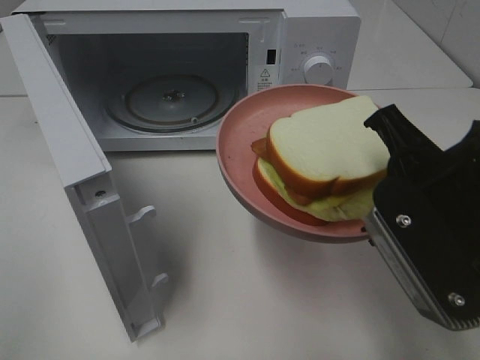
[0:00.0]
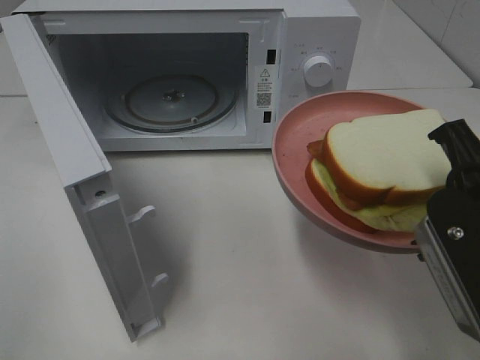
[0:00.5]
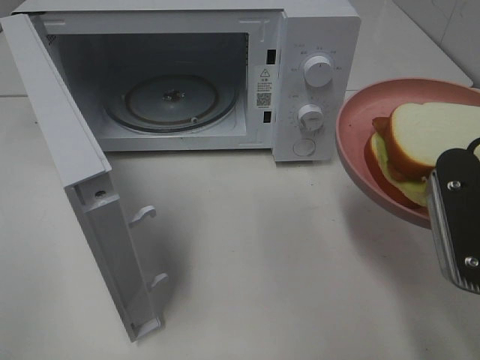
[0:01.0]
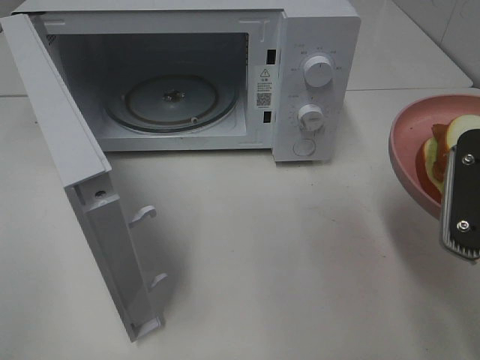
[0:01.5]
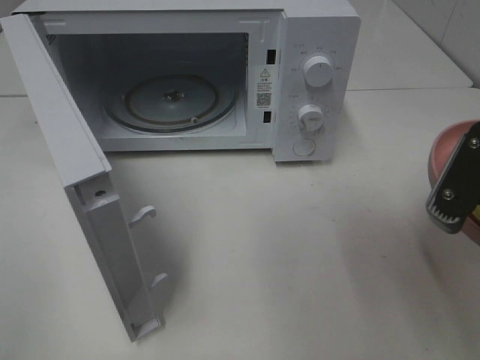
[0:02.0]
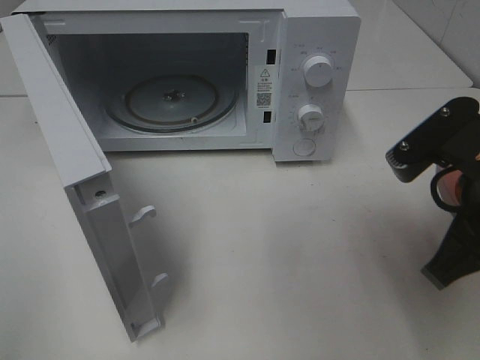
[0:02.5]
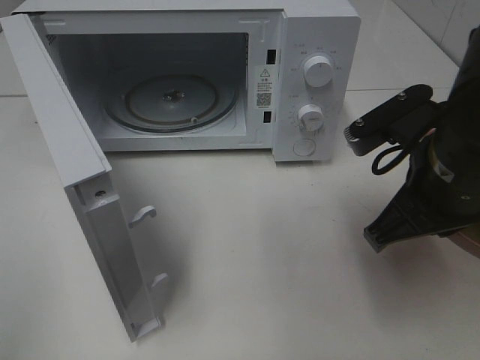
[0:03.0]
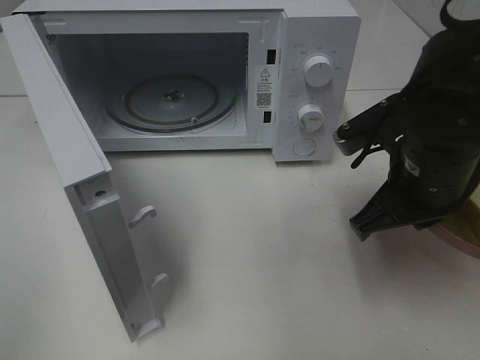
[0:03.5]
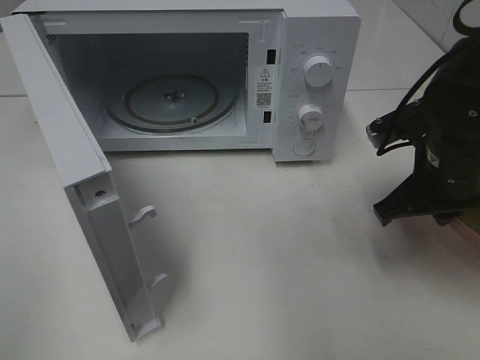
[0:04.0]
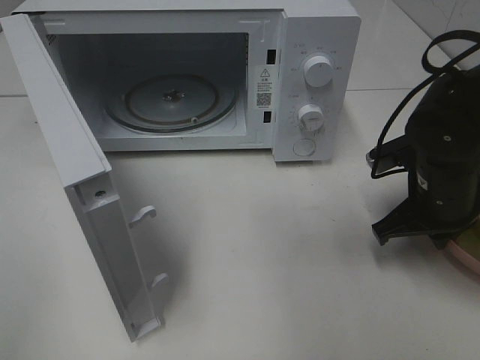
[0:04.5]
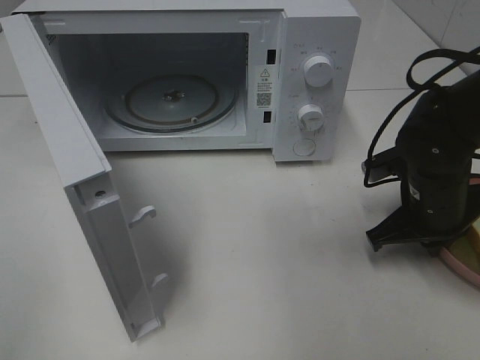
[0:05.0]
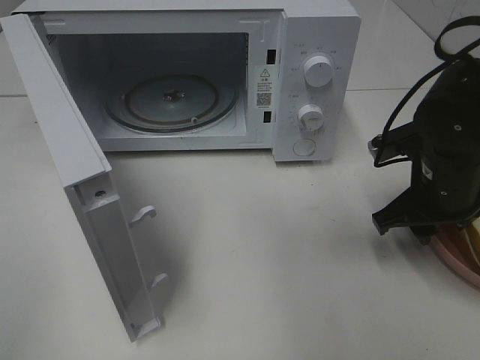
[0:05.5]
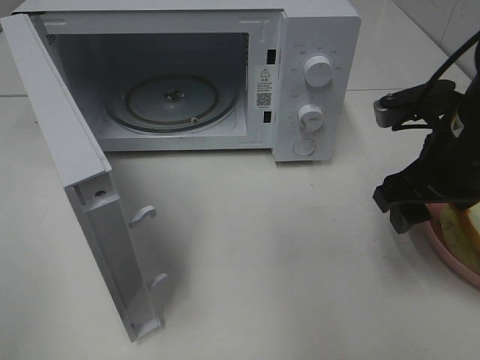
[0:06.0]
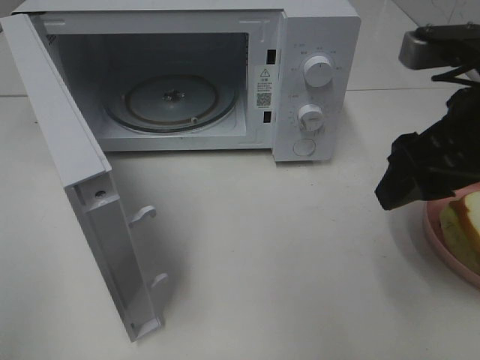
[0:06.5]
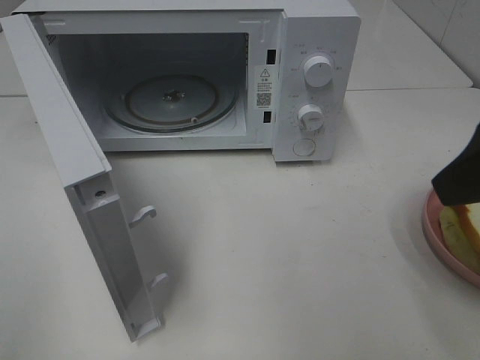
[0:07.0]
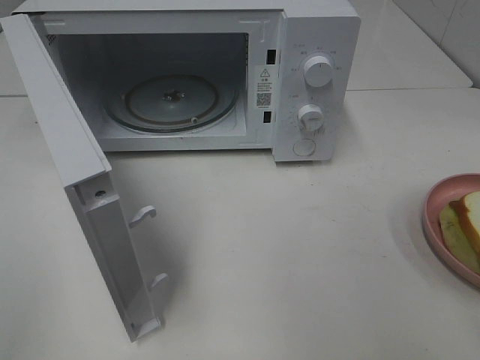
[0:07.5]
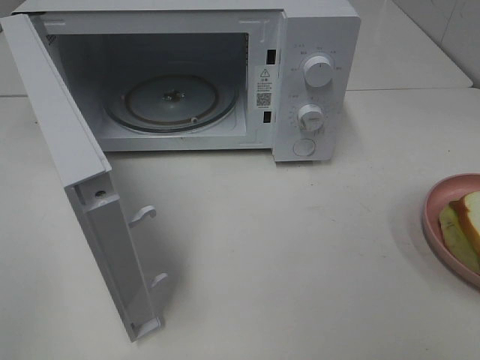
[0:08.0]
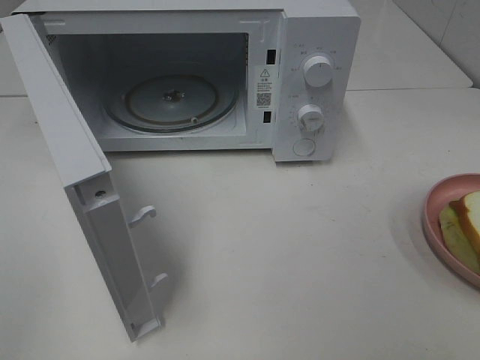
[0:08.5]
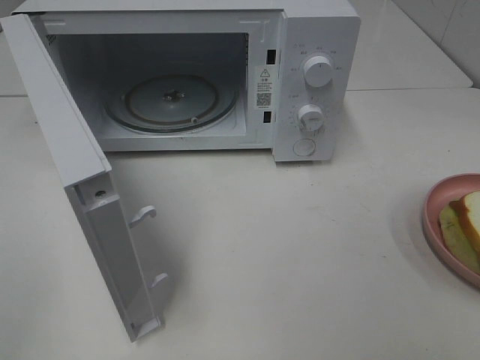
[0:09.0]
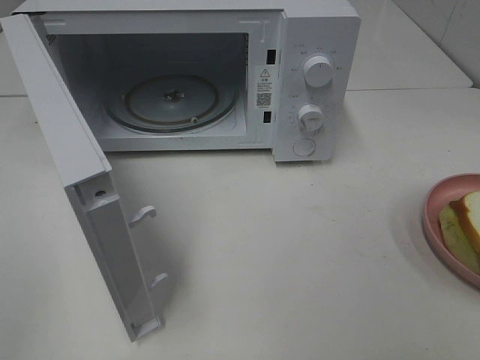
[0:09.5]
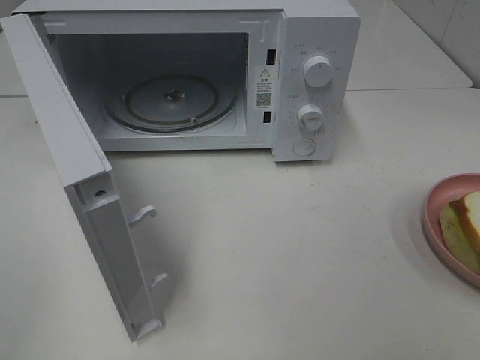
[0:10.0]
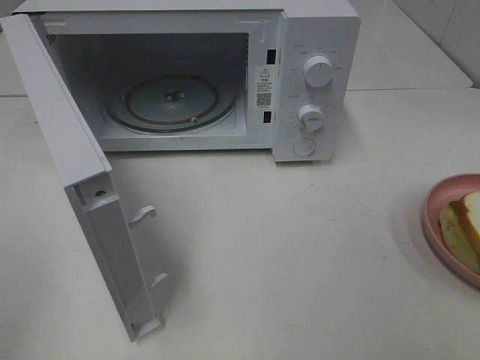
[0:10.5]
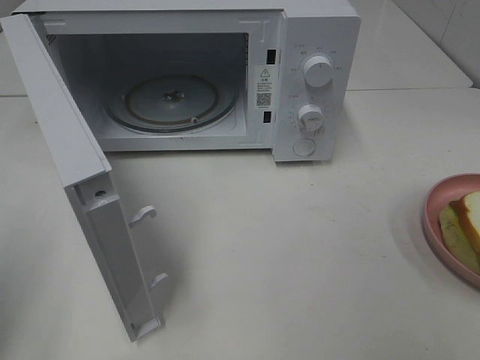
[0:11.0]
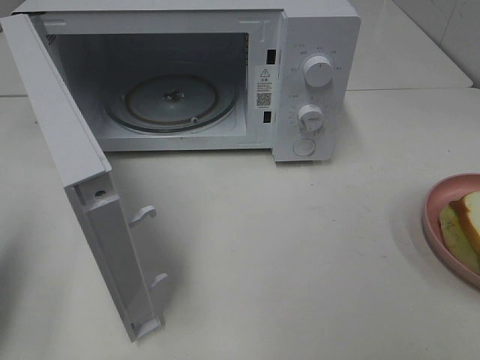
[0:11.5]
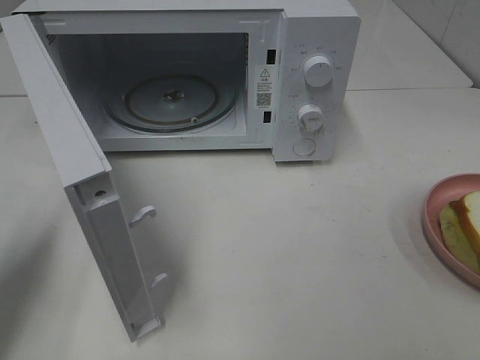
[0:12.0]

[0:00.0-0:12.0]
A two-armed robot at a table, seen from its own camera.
Task of the whole recording: Heat Sandwich.
Step, 0:00.0 to 0:06.0: Right hand: place the plate on the table.
0:00.0 to 0:02.0: The right gripper shifts about 5 cm to the right.
0:02.0 to 0:04.0: The right gripper shifts some 15 cm forward and downward.
0:04.0 to 0:06.0: The right gripper opens.
0:06.0 to 0:08.0: The right gripper shifts about 25 cm backward.
0:10.0 to 0:12.0: The left gripper is displaced forward by some 20 cm, and closes up.

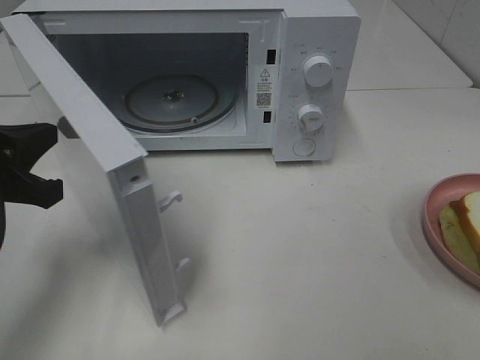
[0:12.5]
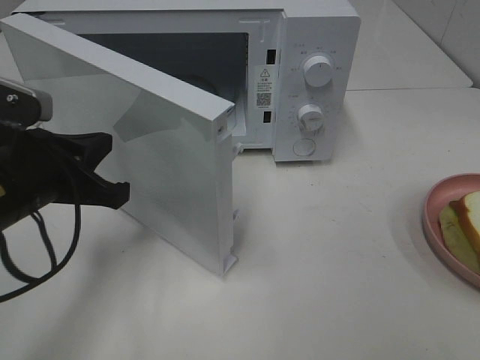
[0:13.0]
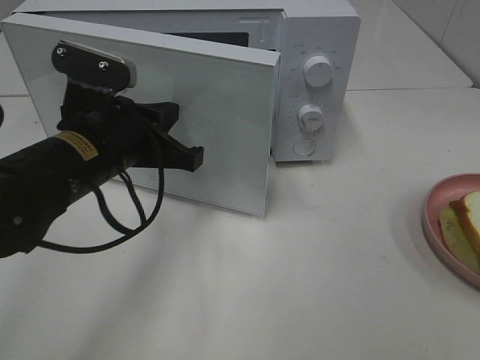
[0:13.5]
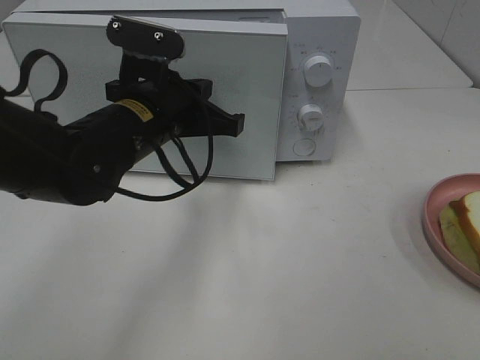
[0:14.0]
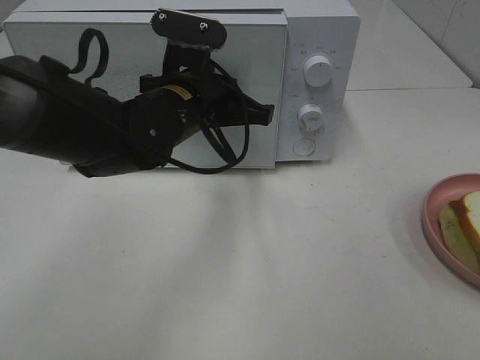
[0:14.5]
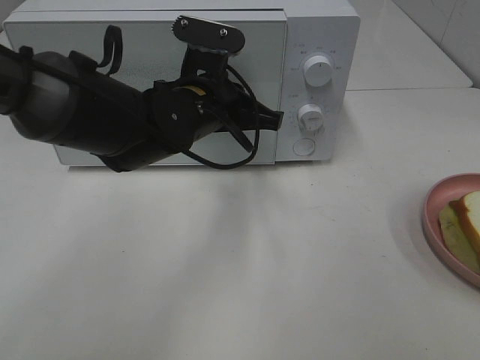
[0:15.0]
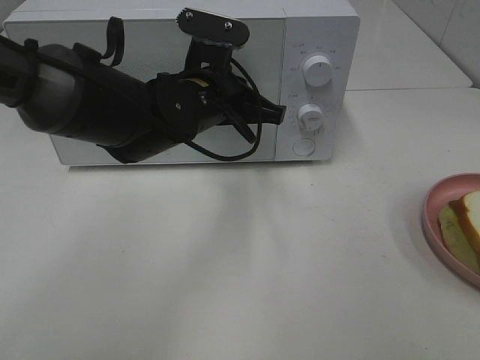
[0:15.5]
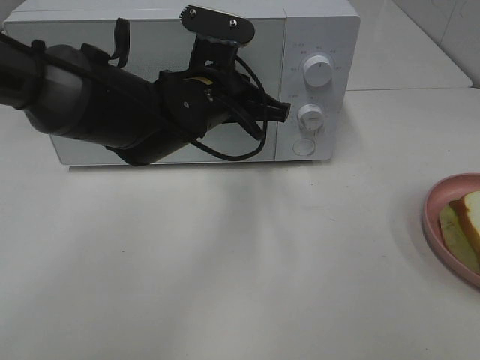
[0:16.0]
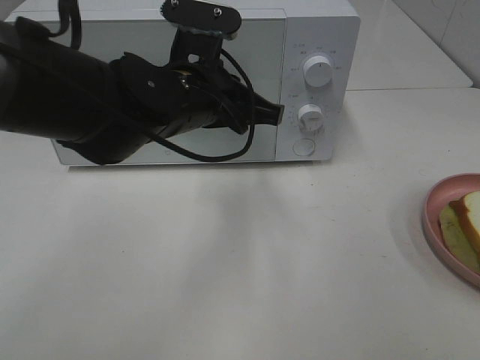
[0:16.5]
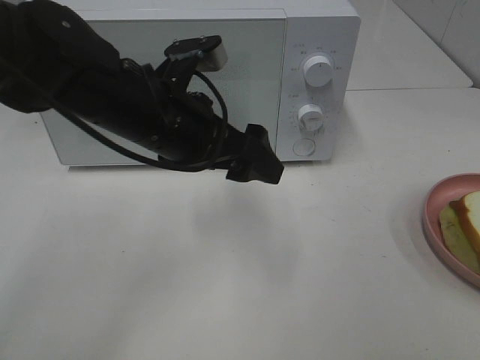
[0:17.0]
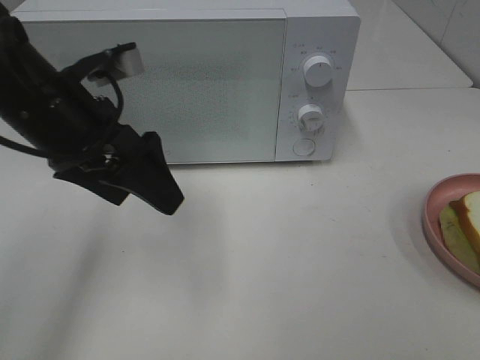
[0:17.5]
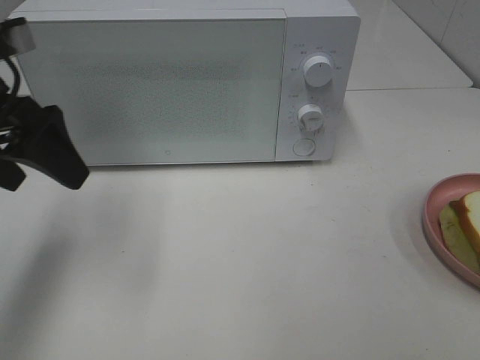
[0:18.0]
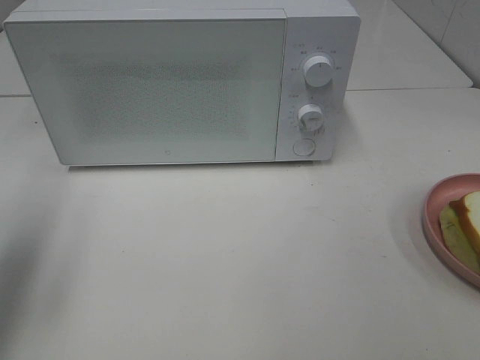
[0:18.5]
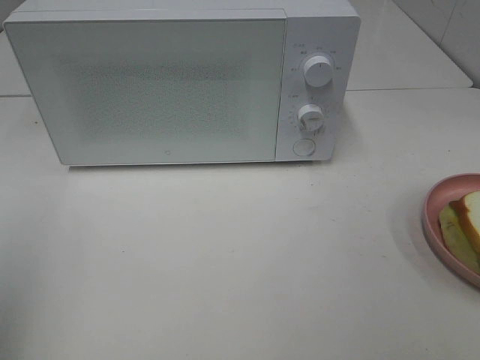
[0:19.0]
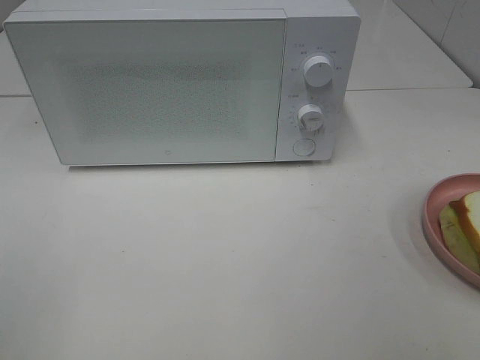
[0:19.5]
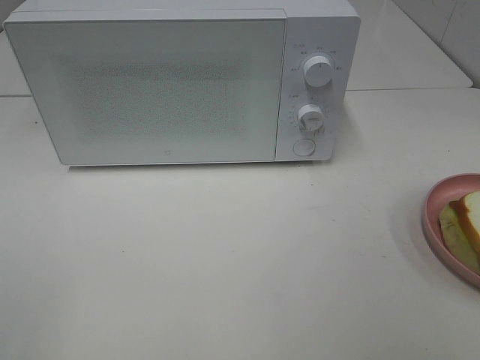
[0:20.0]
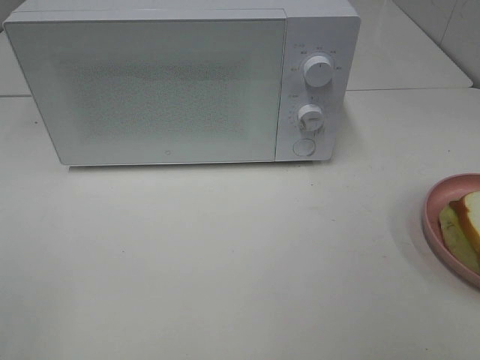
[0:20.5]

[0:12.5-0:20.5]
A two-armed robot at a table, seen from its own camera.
Task of the whole recording: Heat Sandwich.
Step, 0:12.5 to 0:16.0: Left hand: close the microwave door.
0:12.5 to 0:14.5: The left gripper moves to the right and forward, some 20 cm.
0:14.5 to 0:16.5: There are only small adjustments of the grippers.
0:16.5 to 0:18.5: The left gripper is displaced to the left by some 30 cm, and opens.
0:18.5 to 0:20.5: The left gripper goes roughly 20 cm backward.

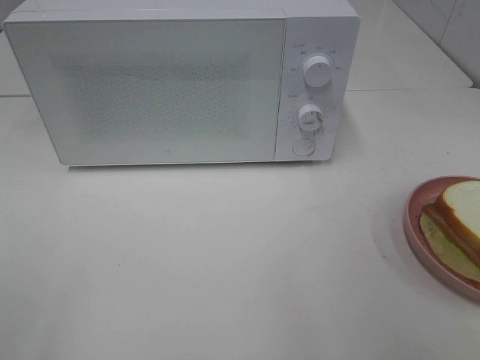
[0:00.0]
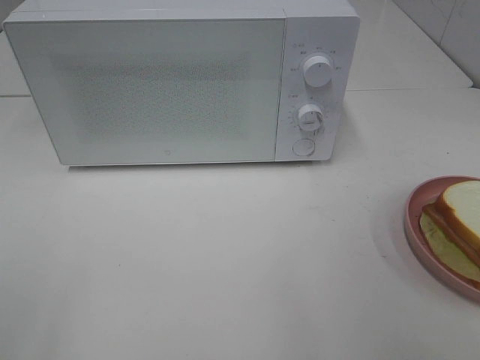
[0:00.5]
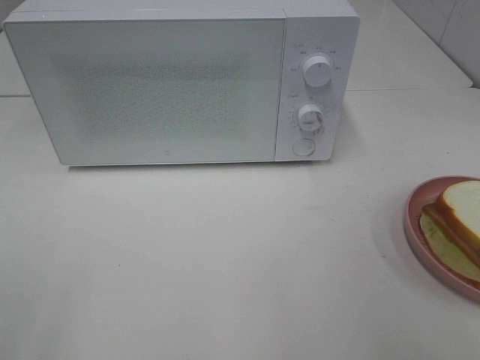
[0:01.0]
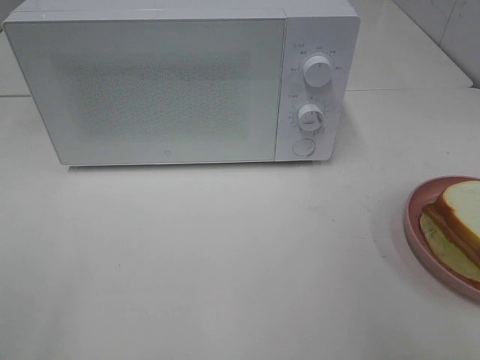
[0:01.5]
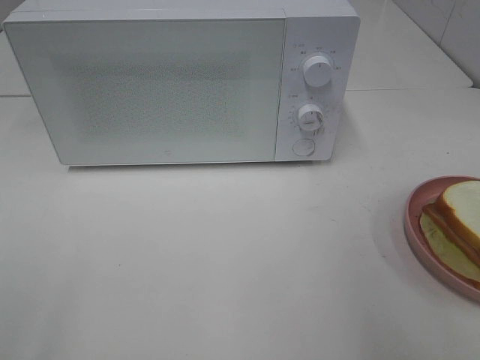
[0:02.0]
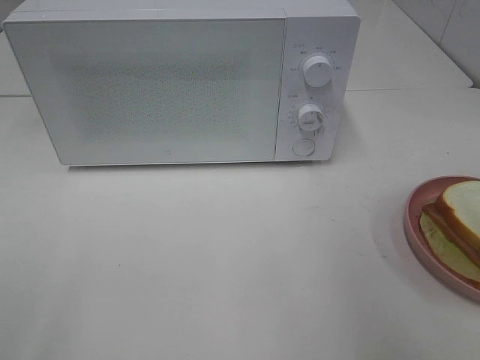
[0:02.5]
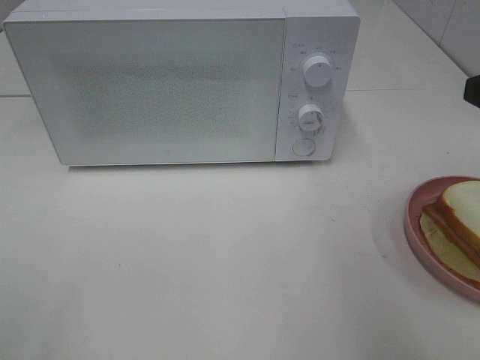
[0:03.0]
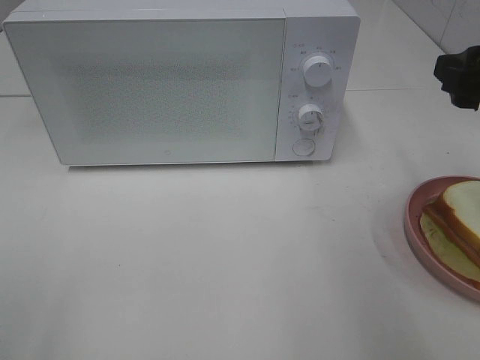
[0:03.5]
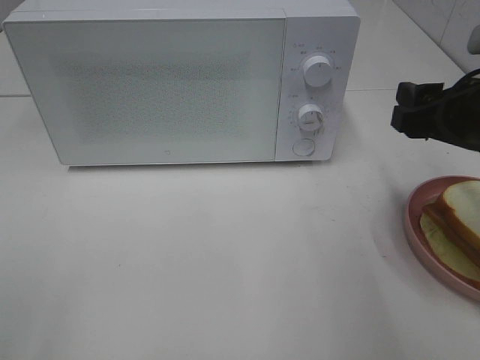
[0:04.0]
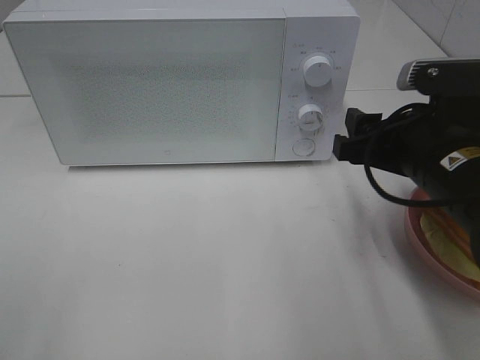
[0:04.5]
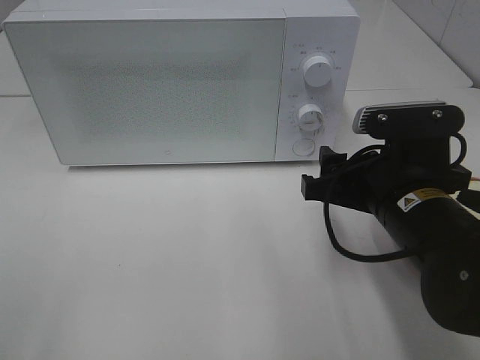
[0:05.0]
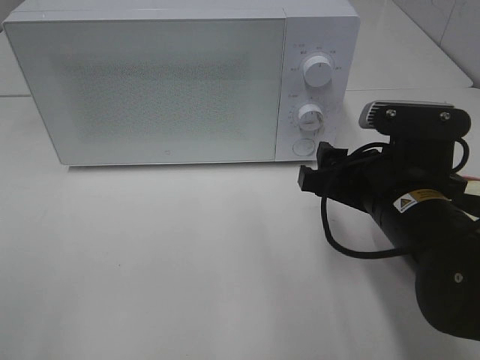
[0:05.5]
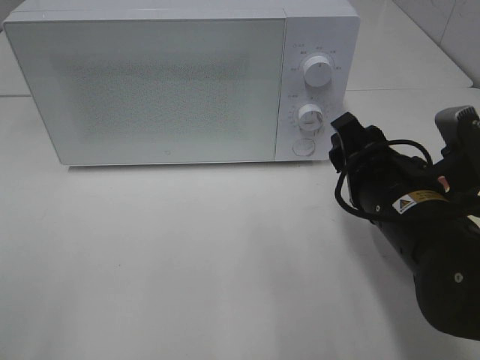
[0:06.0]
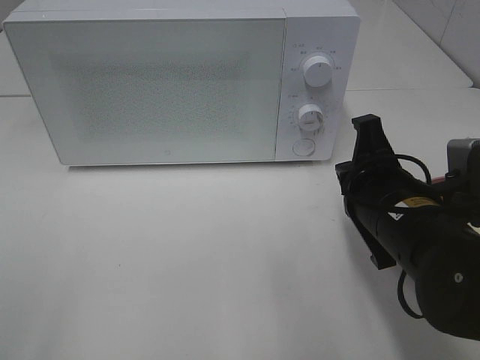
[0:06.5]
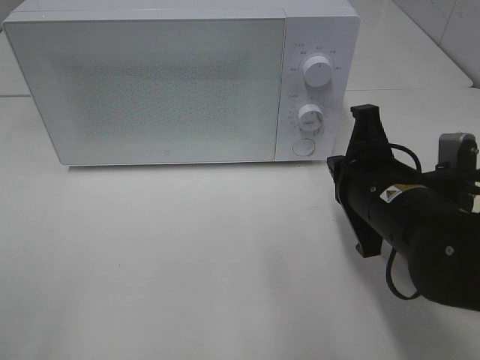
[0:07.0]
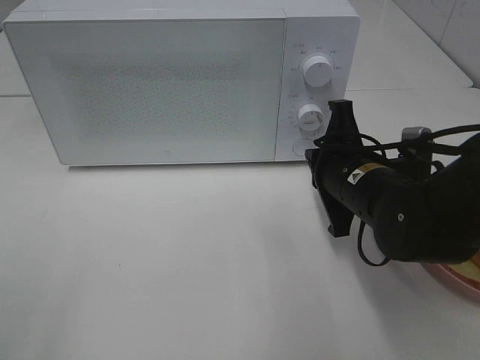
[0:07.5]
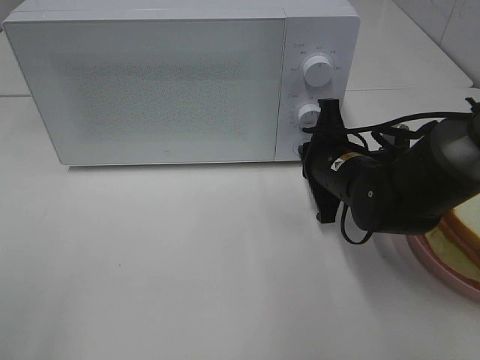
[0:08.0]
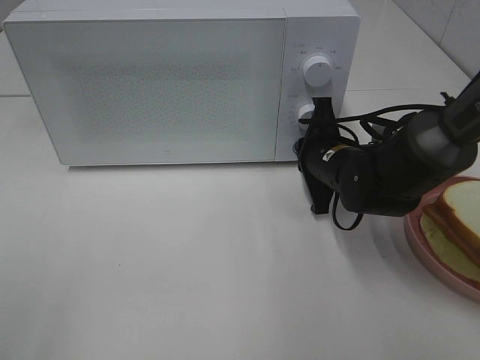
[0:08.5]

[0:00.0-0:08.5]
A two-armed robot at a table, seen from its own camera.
Task of the whole recording: Heat Sandwich.
0:02.0 to 0:04.0: The right gripper heads forward and downward, covering approximately 15 cm.
0:04.0 to 0:06.5: The right gripper heads to the left and downward, covering roughly 10 cm, and closes its fingers.
0:06.5 to 0:08.5: The right gripper shifts about 15 cm forward and downward.
